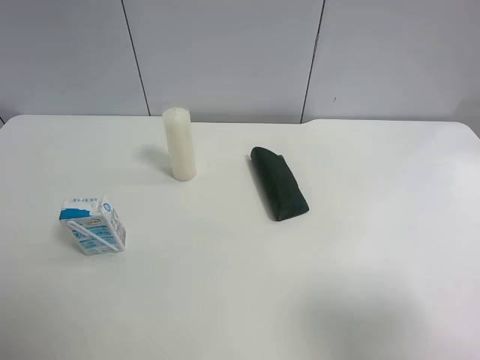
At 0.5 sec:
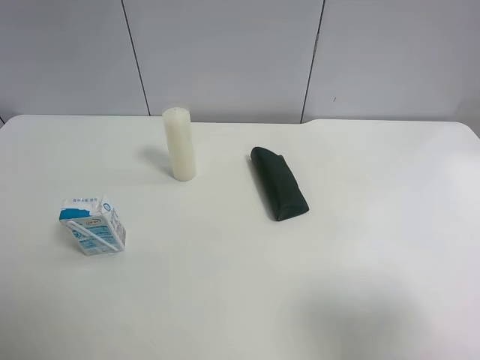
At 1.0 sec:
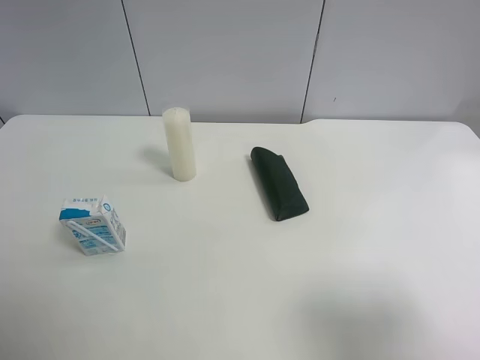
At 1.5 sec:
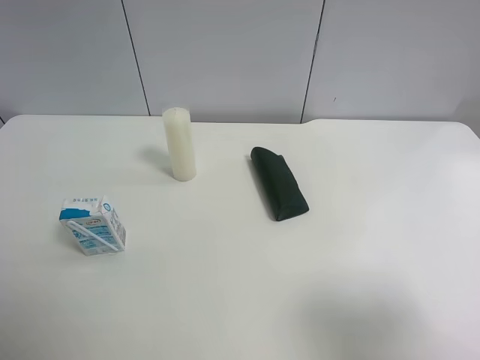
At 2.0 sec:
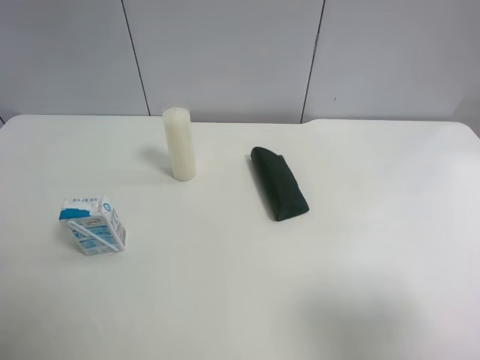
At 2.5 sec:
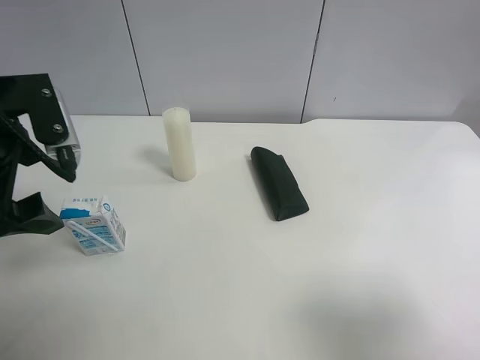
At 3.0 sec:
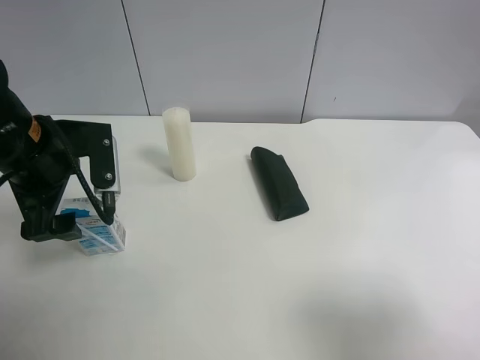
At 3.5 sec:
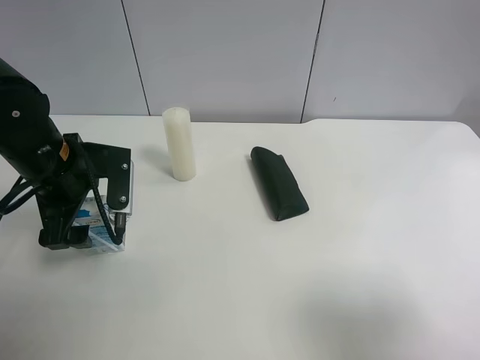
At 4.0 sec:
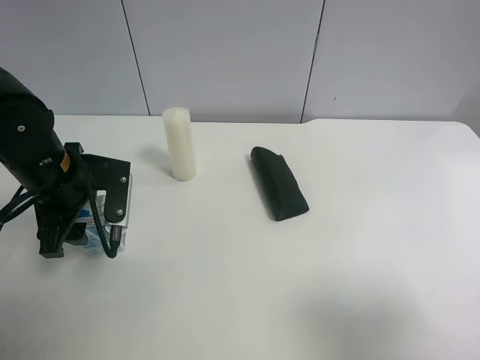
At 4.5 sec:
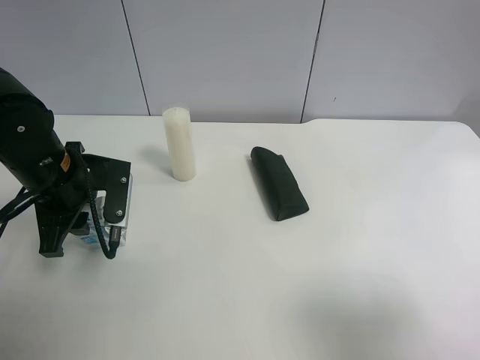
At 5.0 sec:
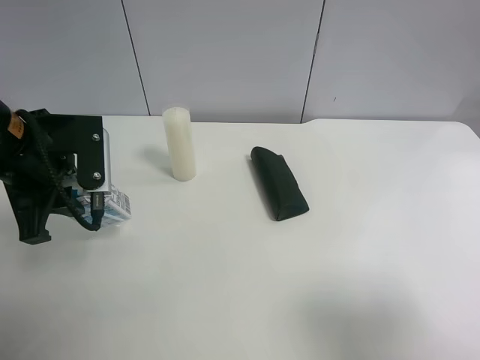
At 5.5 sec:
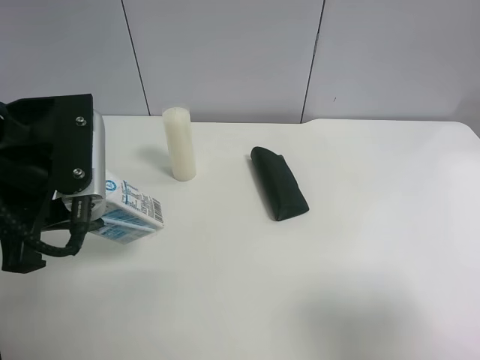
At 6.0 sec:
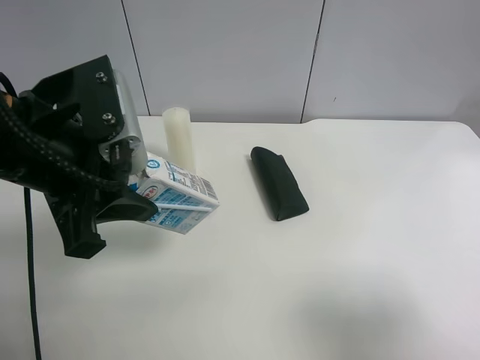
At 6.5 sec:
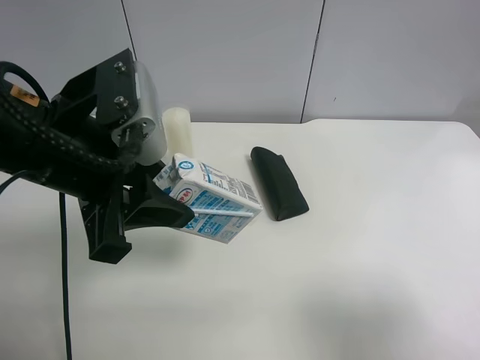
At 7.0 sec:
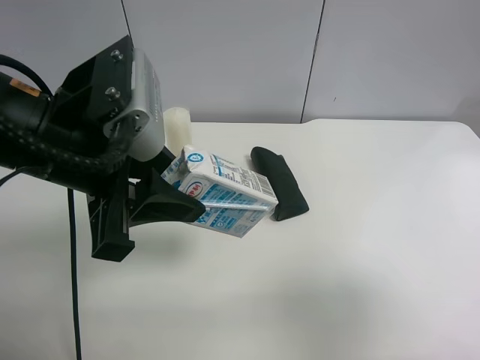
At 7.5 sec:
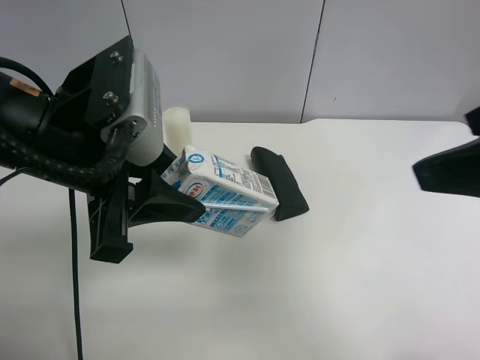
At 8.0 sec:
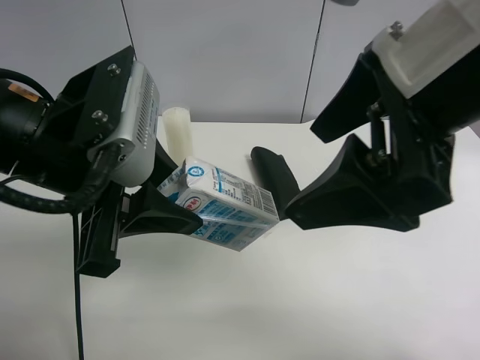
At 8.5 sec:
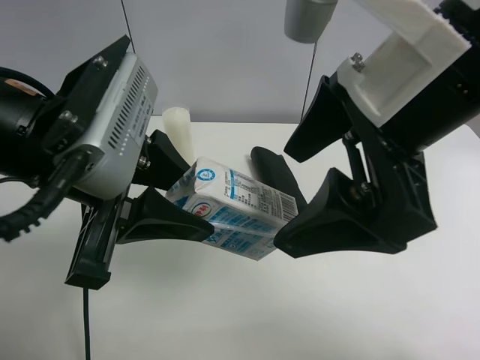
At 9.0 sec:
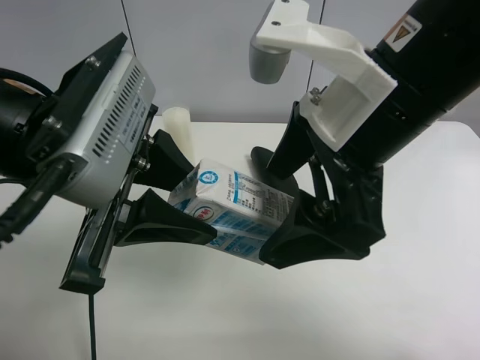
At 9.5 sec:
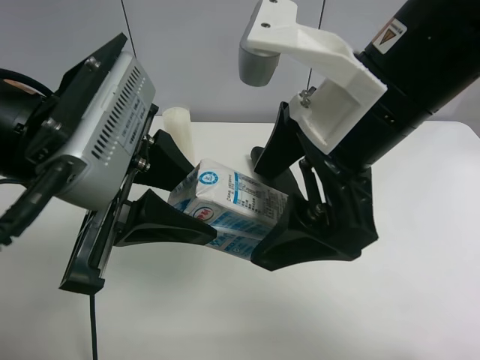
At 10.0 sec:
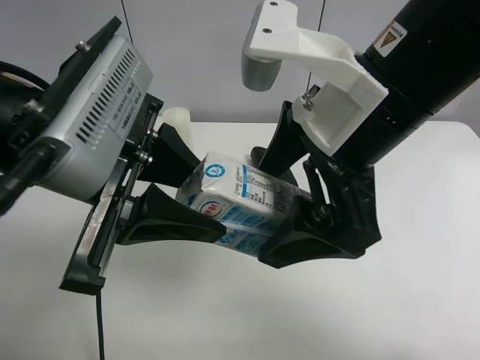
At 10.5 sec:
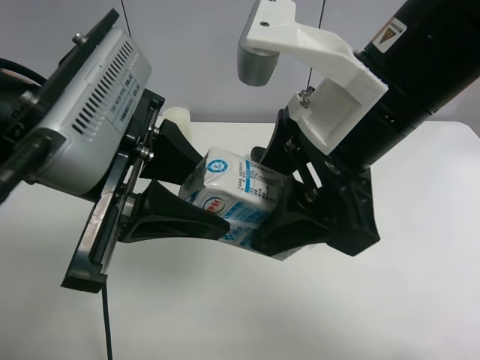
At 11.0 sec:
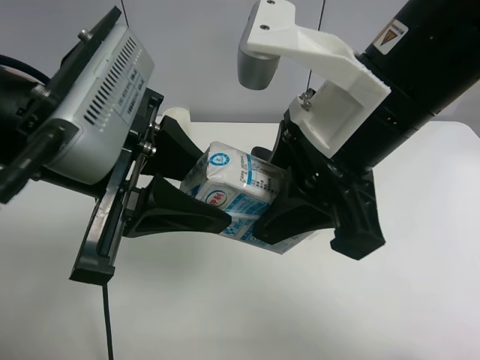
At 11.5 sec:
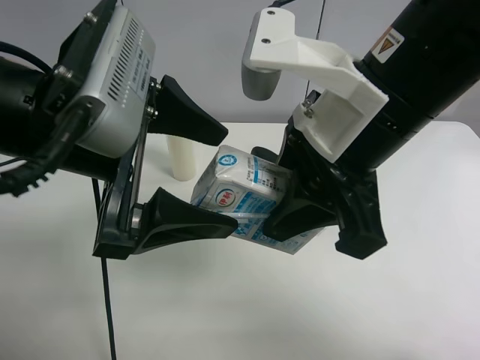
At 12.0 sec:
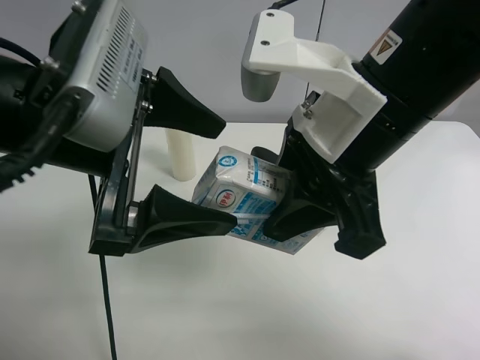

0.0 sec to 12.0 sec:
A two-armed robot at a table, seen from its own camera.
Task of the whole recording: use the left gripper to pick up the item and transfer it from the left gripper to the right gripper.
2.0 sec to 4.0 sec: The left gripper travels downward, forward and to the right by about 25 cm, and closes up.
4.0 sec to 6.0 sec: The left gripper shifts about 15 cm upward, backward and to the right, and closes up.
6.0 sec to 8.0 sec: The right gripper travels to the left, forward and upward by roughly 25 cm.
8.0 sec to 10.0 sec: The right gripper changes place by approximately 5 cm.
10.0 sec to 12.0 sec: The left gripper opens its fingers, while the right gripper closes its fingers.

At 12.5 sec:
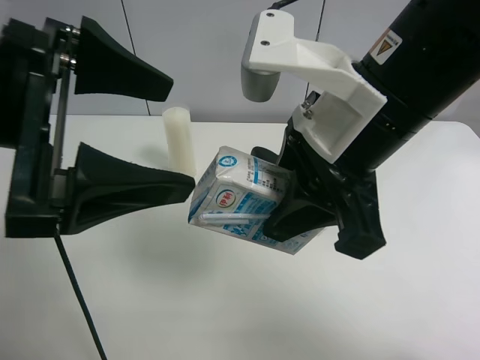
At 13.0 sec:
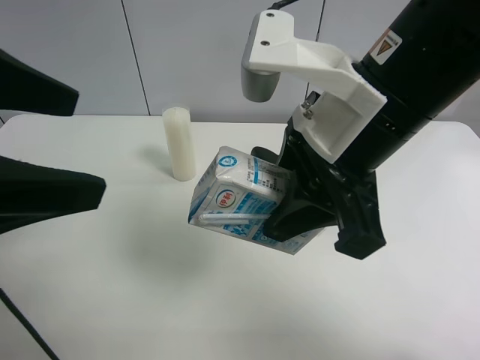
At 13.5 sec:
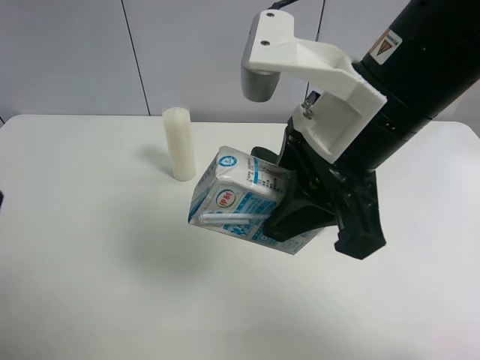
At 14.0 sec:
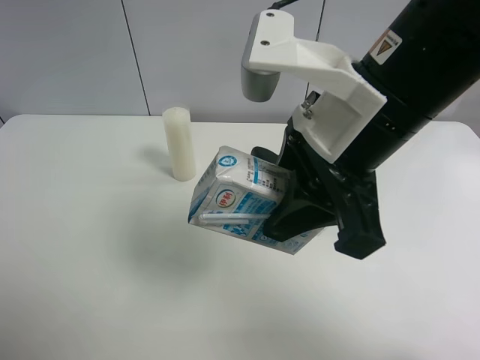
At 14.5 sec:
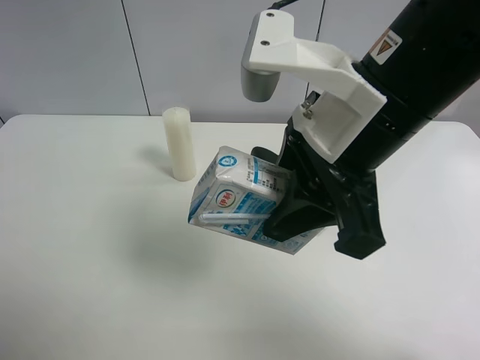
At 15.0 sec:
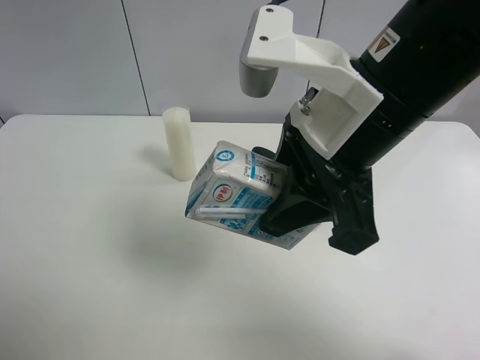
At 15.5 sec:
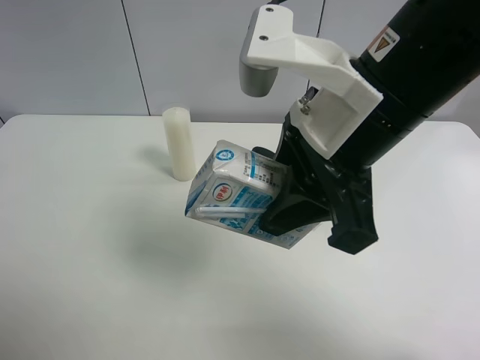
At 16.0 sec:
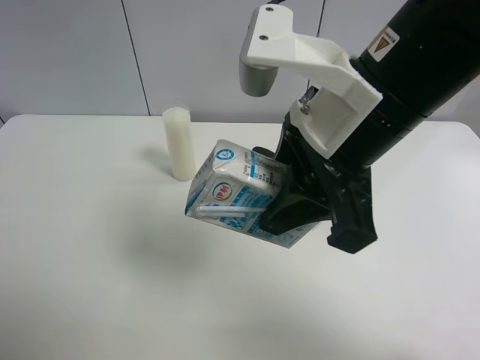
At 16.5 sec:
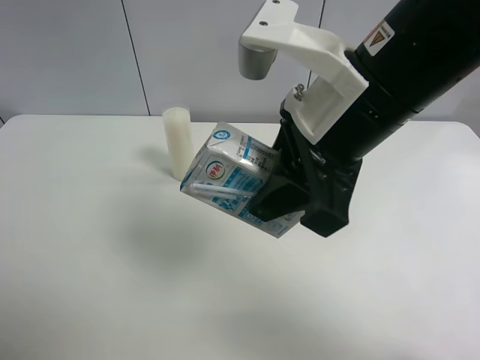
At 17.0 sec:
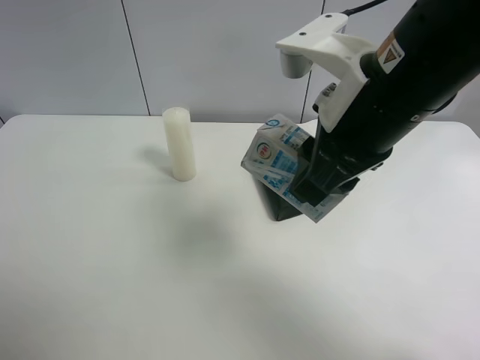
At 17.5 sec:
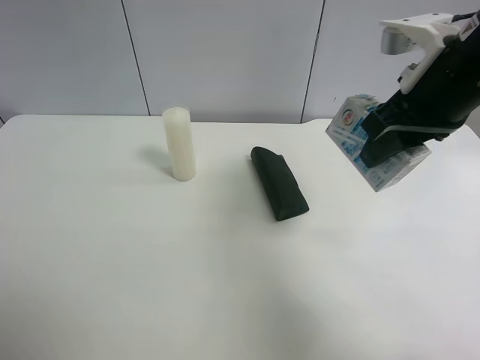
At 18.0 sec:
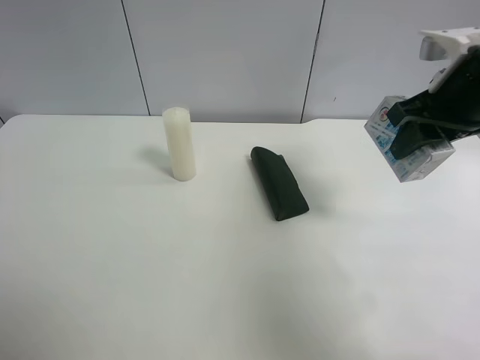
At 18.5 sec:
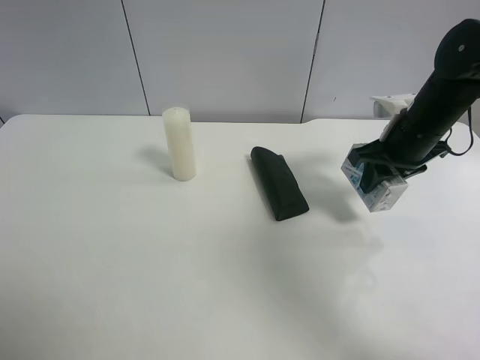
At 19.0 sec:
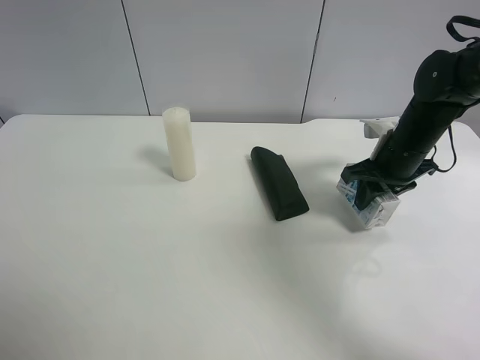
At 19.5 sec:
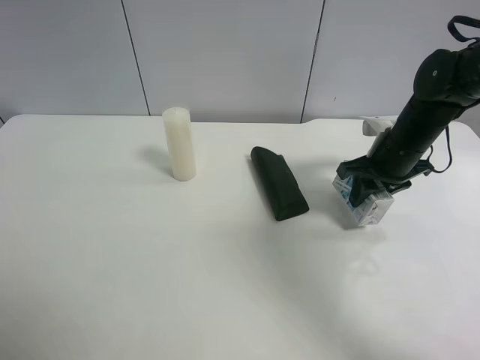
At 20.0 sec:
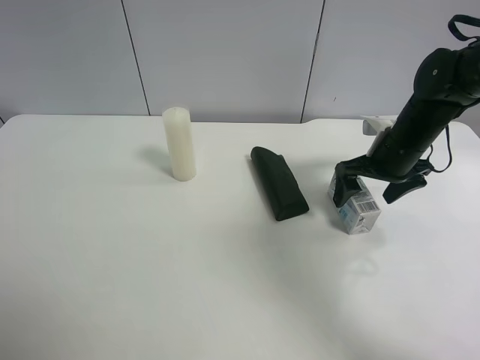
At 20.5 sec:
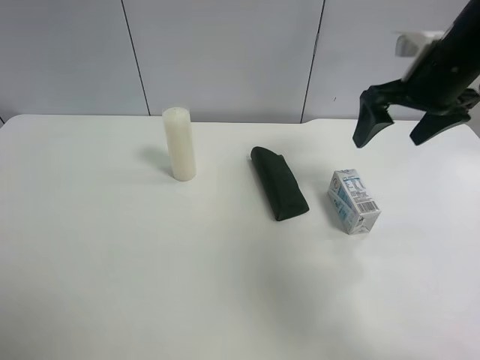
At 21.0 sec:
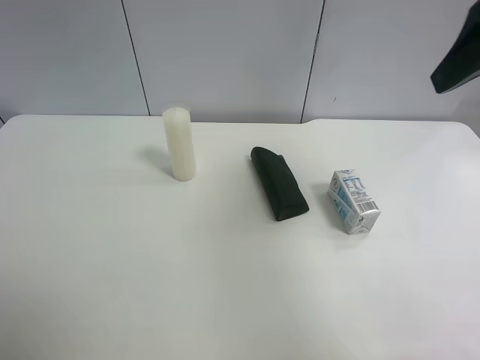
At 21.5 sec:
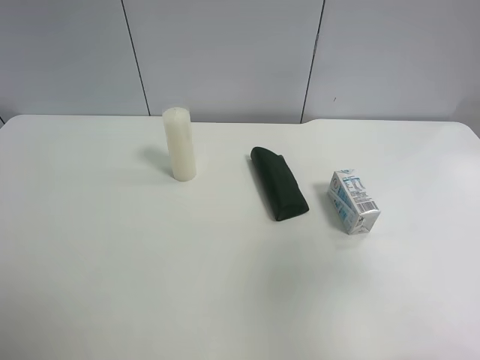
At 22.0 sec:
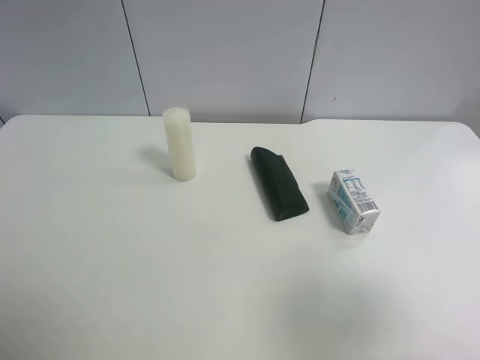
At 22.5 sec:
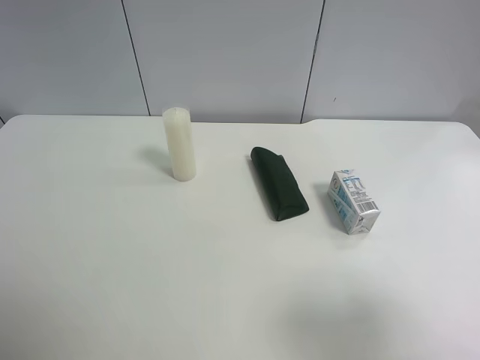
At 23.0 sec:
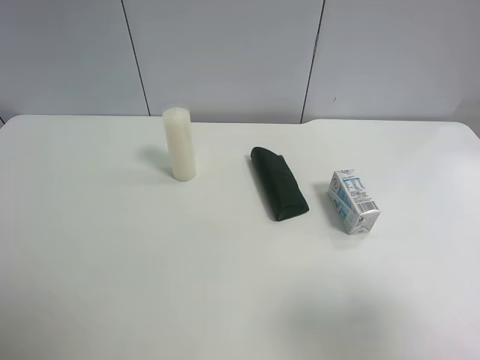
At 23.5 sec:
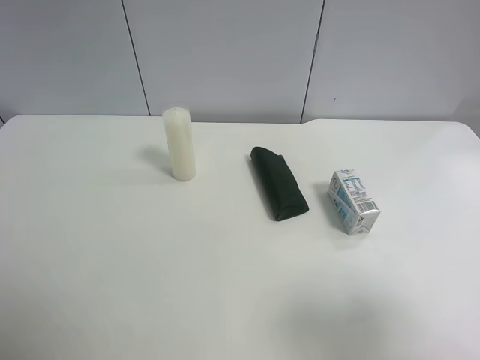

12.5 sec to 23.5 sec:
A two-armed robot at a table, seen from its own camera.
Task of the whole recording: use the left gripper to pick up the item and transfer it from the left gripper to the right gripper.
12.5 sec to 14.5 sec: The left gripper travels to the left and backward by some 20 cm.
14.5 sec to 16.0 sec: The grippers make only small movements.
16.0 sec to 18.0 sec: The right gripper goes some 20 cm to the right and forward.
18.0 sec to 20.0 sec: The right gripper travels downward and forward by roughly 15 cm, and opens its fingers.
20.0 sec to 21.5 sec: The right gripper is displaced backward and upward by roughly 30 cm.
21.5 sec to 23.5 sec: The right gripper travels backward by some 10 cm.

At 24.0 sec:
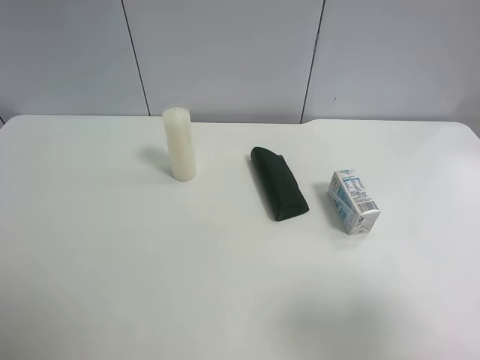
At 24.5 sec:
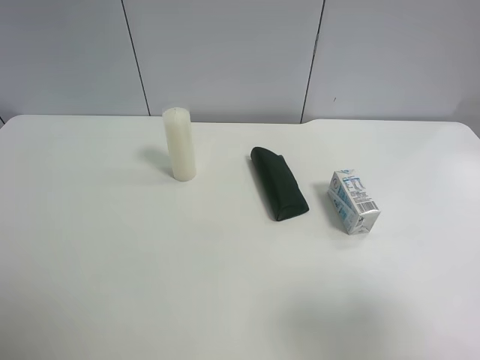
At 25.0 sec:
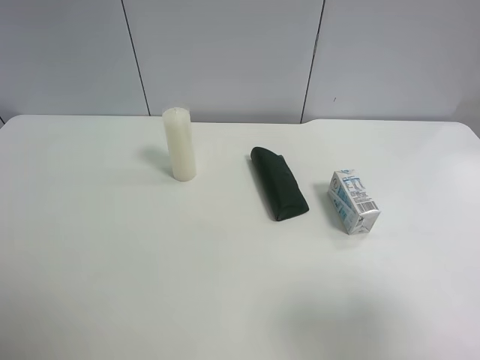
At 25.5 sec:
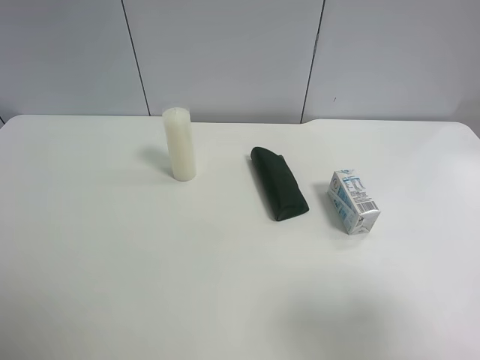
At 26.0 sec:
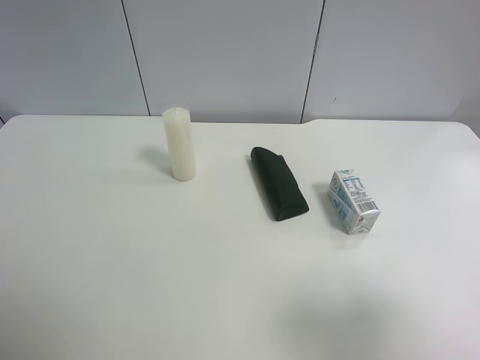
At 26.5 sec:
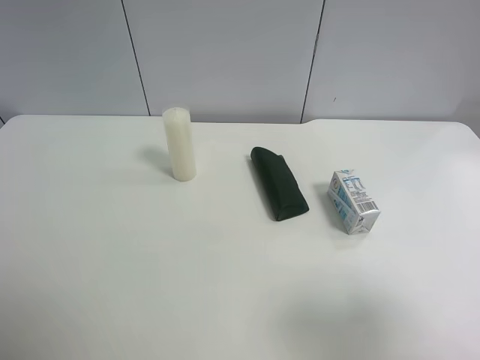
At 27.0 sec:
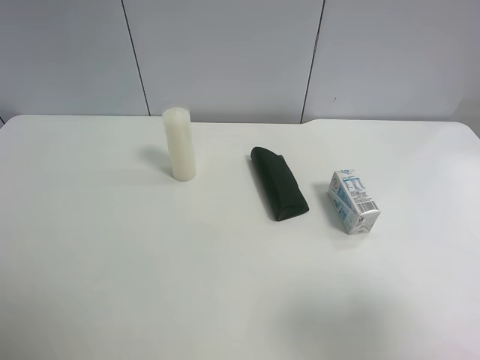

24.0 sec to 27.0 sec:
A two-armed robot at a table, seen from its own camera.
Task of the whole recording: use the left gripper to pick up the item and transfer it from the left gripper to the right gripper.
25.5 sec to 27.0 sec: The two grippers keep their place.
